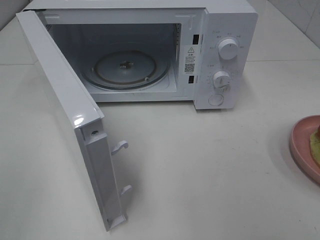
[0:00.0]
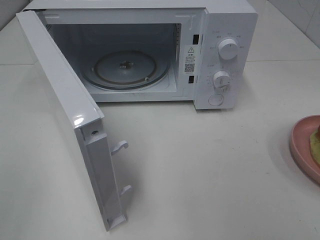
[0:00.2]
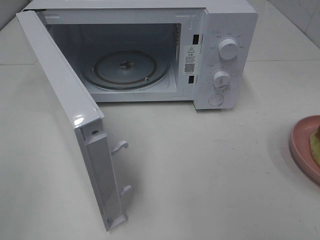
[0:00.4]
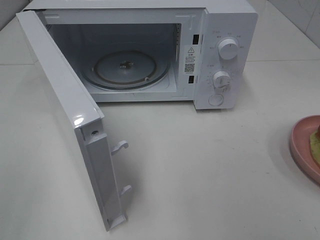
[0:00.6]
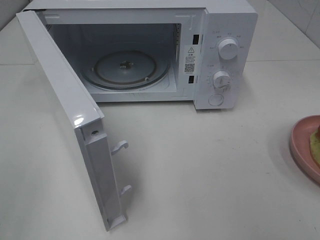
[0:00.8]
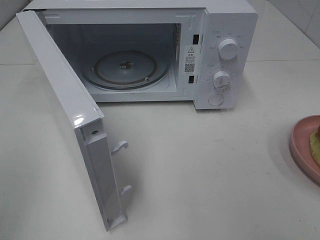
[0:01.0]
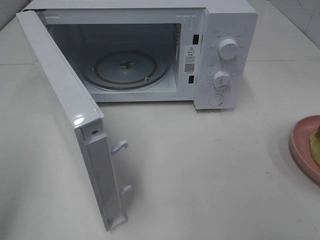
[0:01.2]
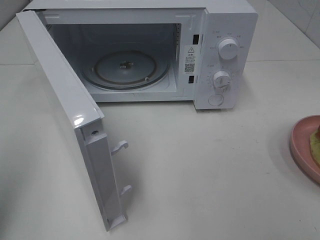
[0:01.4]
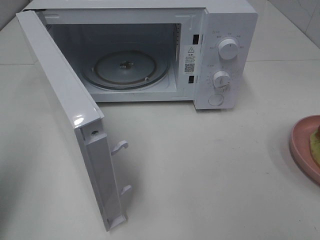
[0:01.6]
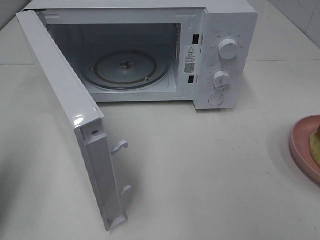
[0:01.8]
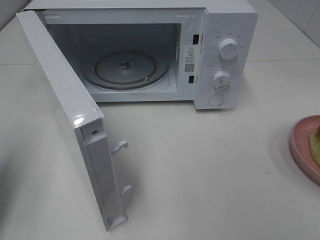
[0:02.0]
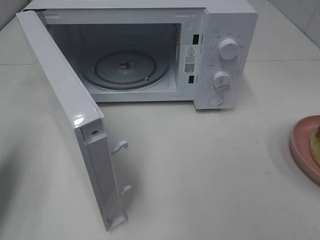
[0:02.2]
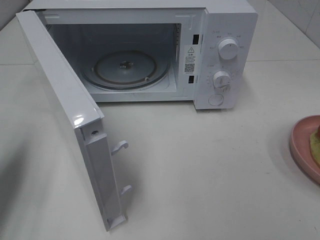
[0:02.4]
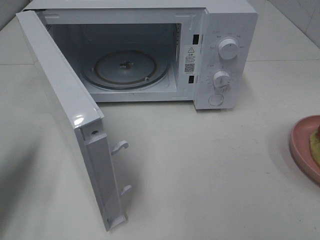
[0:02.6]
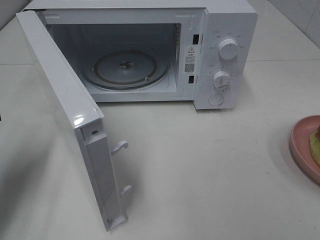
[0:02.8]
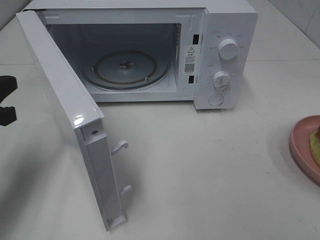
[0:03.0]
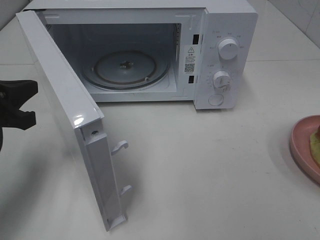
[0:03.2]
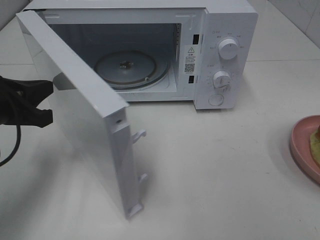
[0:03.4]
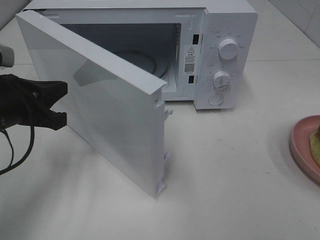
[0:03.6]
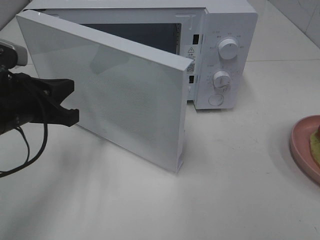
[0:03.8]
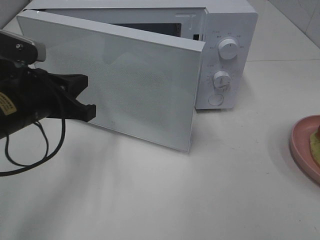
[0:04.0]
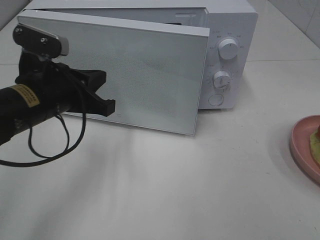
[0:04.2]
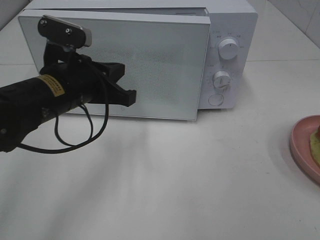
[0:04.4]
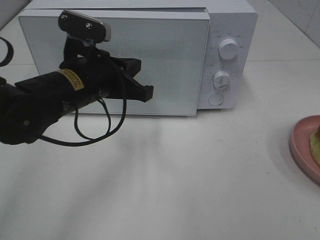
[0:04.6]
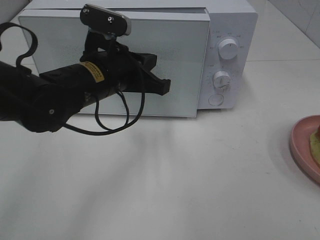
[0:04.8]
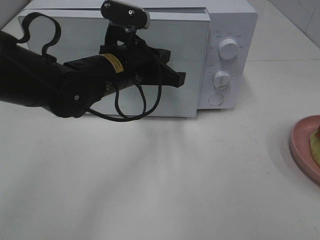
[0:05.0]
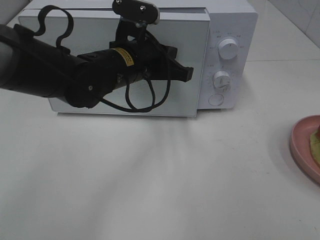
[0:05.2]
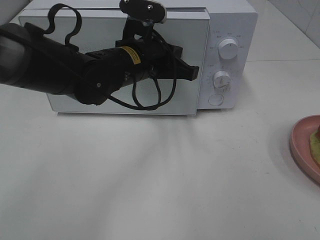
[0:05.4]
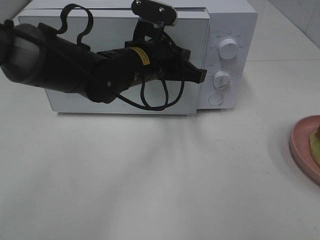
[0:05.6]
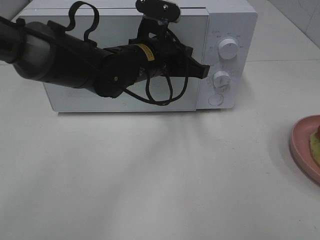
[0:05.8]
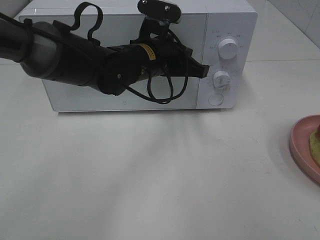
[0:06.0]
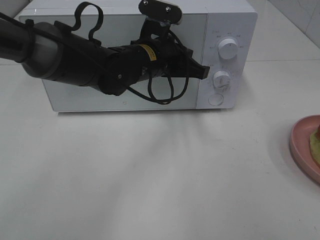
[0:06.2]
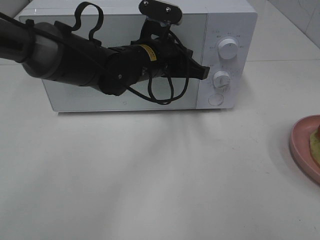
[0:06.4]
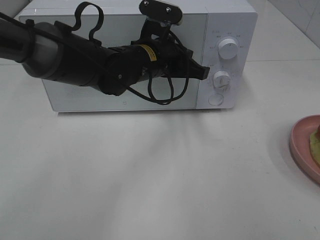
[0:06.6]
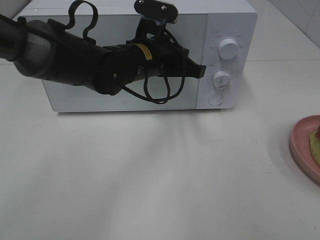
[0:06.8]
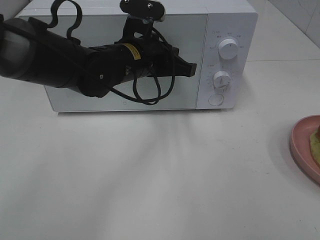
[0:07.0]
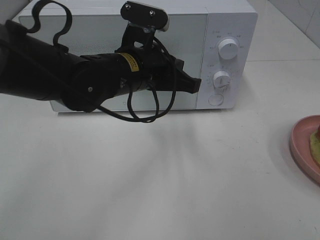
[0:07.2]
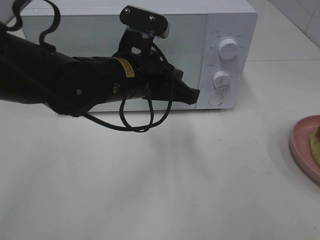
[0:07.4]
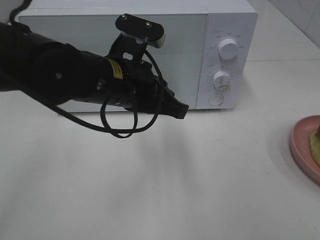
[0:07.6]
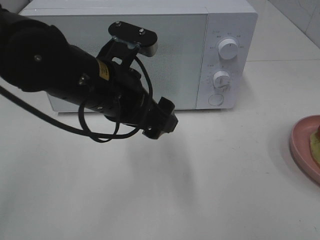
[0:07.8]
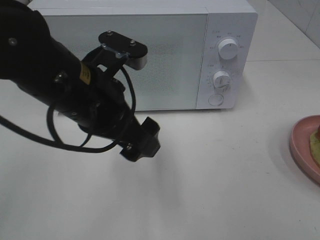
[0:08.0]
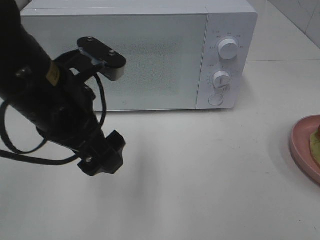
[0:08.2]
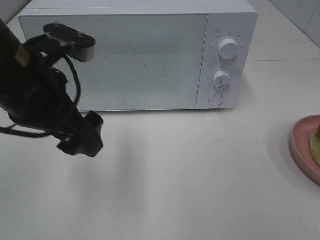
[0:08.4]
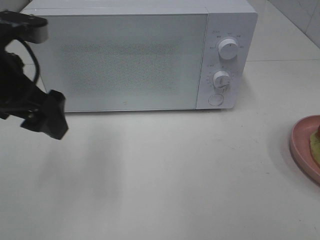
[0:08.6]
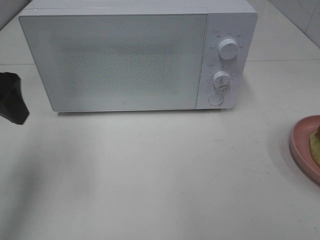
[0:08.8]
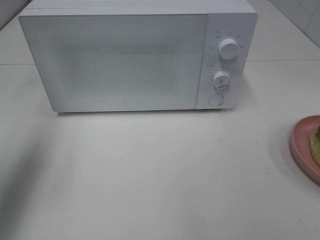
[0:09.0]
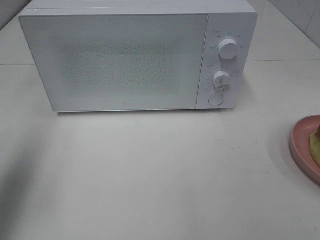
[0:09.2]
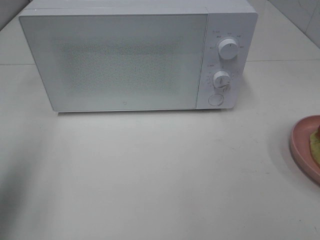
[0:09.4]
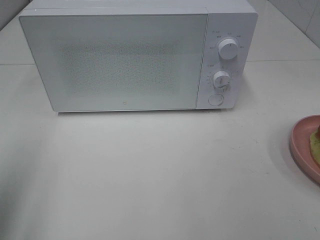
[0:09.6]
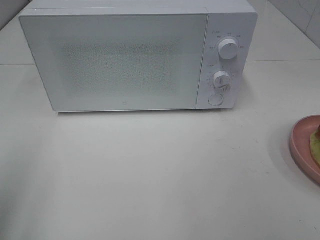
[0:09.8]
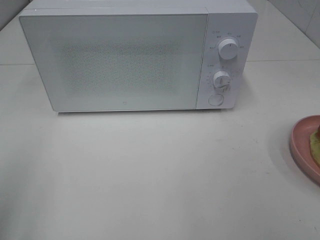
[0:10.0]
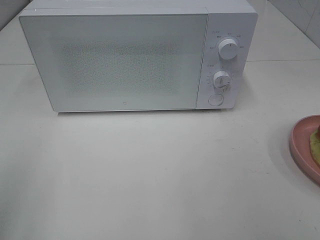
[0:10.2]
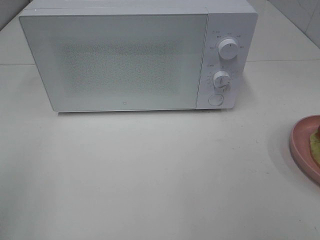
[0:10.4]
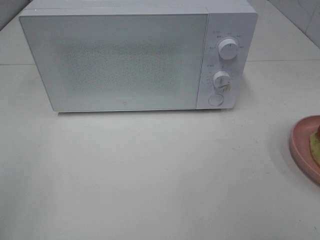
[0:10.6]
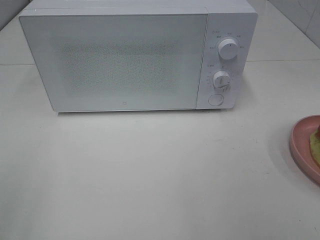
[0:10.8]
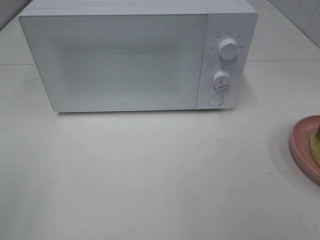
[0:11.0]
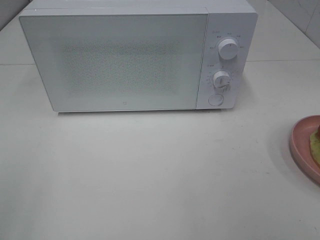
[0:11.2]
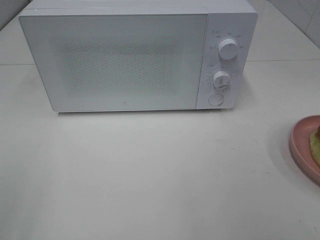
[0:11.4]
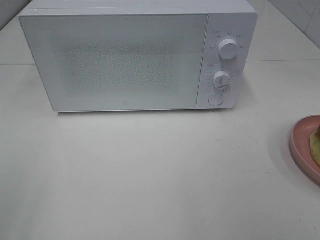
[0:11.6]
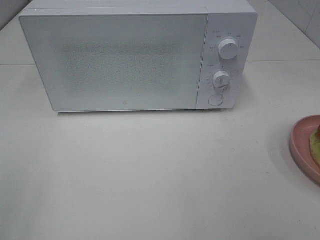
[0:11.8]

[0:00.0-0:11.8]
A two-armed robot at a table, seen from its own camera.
Task of the whole recording: Heat Sandwich.
Step, 0:00.0 to 0:07.4: Left hand: close the microwave door.
0:01.4 to 0:03.0: The left gripper moves forward and downward, about 15 cm.
0:03.0 to 0:04.4: The left gripper goes roughly 15 cm to the right.
0:04.4 to 0:06.0: The left gripper shifts approximately 15 cm to the right and forward.
0:06.0 to 0:07.4: The left gripper heads backward, covering some 10 cm.
0:07.4 to 0:08.8: The left gripper heads to the left and upward, covering about 25 cm, and opens its fingers.
0:08.8 to 0:10.4: The left gripper is displaced backward by approximately 20 cm.

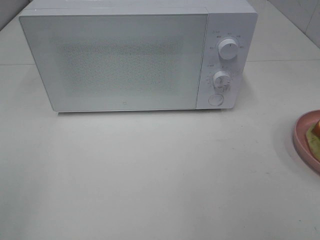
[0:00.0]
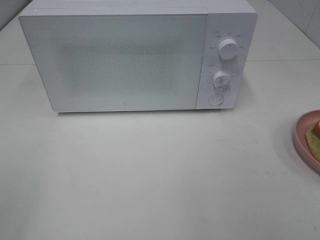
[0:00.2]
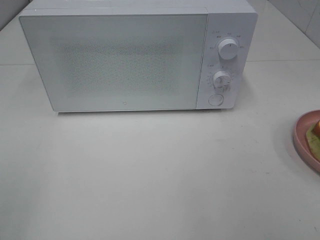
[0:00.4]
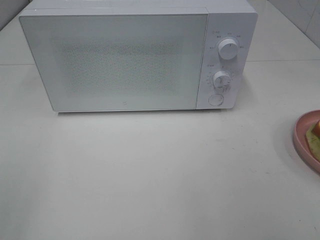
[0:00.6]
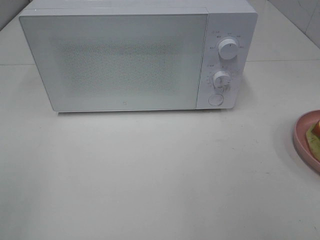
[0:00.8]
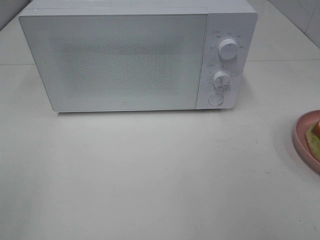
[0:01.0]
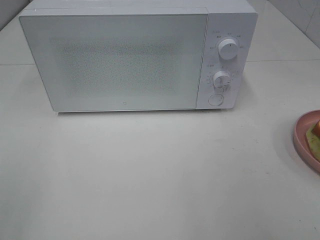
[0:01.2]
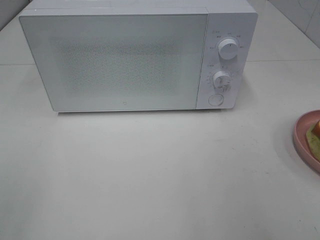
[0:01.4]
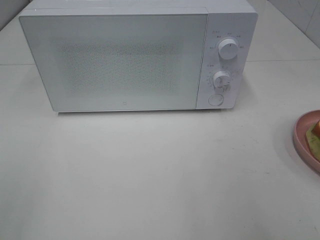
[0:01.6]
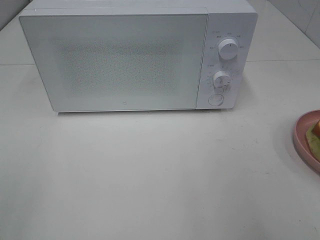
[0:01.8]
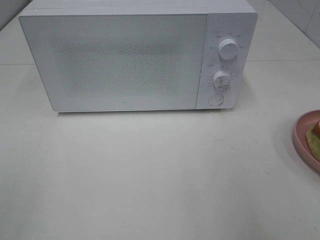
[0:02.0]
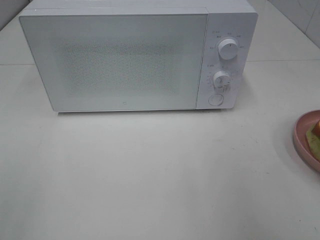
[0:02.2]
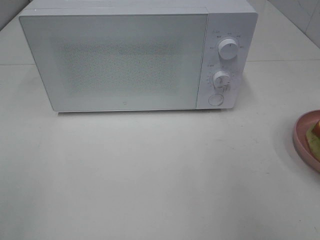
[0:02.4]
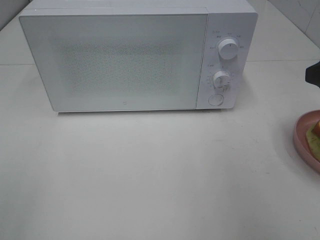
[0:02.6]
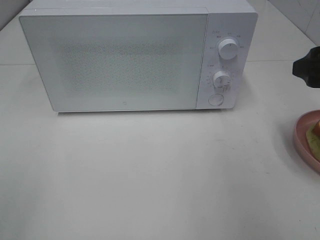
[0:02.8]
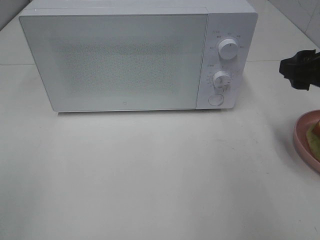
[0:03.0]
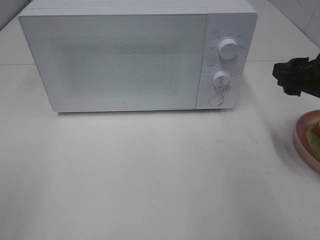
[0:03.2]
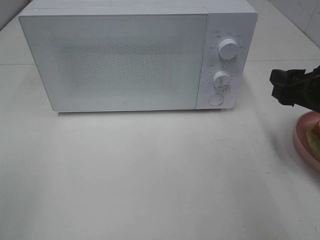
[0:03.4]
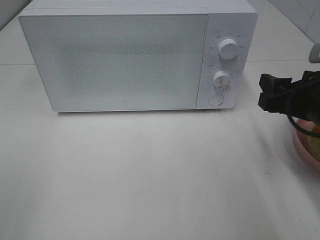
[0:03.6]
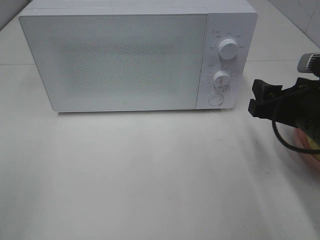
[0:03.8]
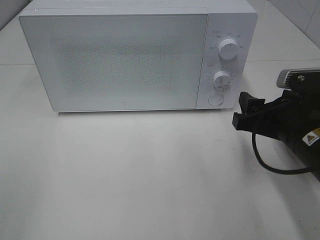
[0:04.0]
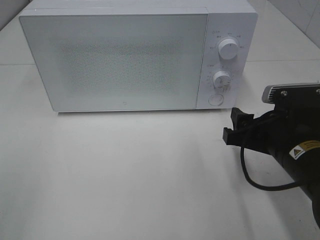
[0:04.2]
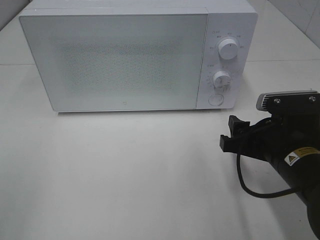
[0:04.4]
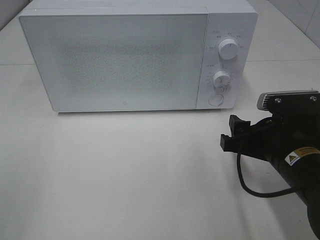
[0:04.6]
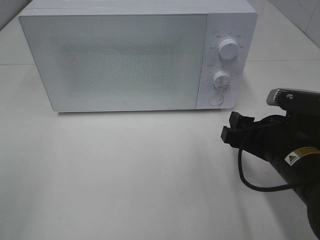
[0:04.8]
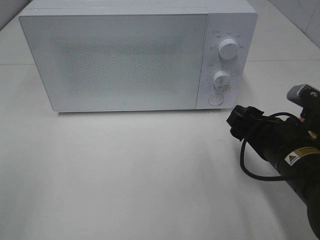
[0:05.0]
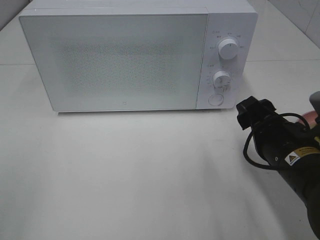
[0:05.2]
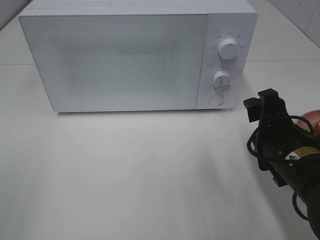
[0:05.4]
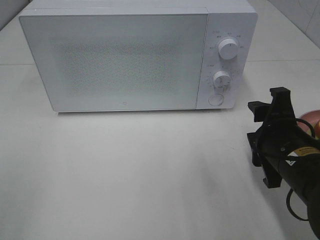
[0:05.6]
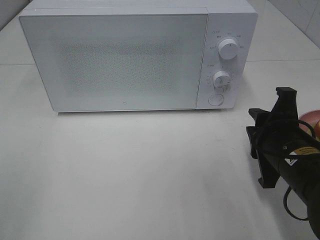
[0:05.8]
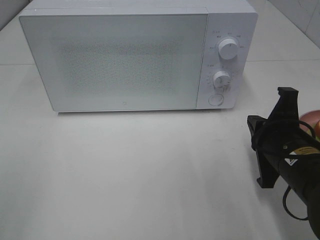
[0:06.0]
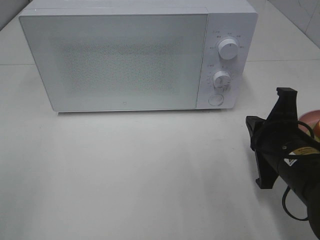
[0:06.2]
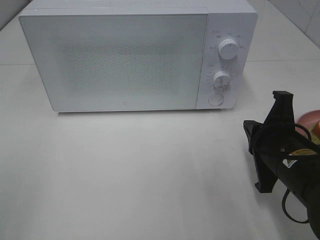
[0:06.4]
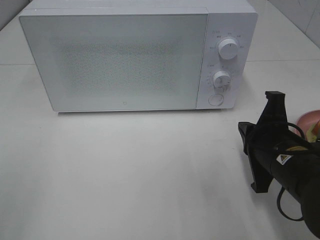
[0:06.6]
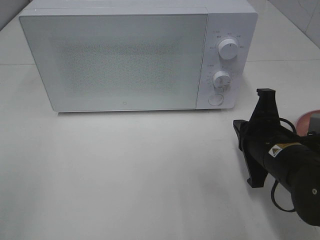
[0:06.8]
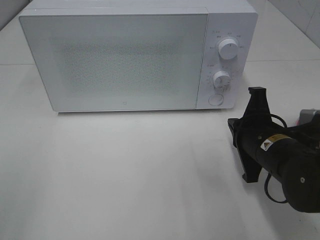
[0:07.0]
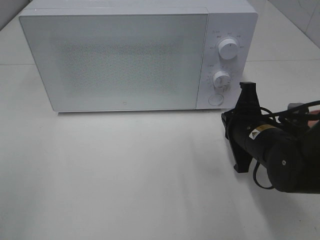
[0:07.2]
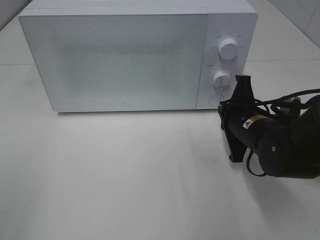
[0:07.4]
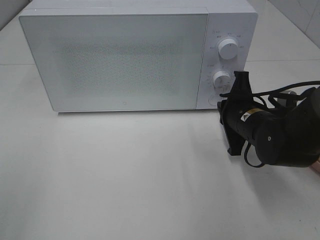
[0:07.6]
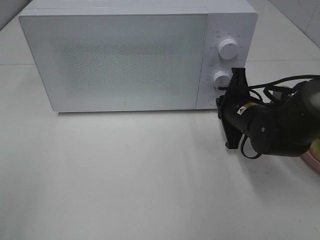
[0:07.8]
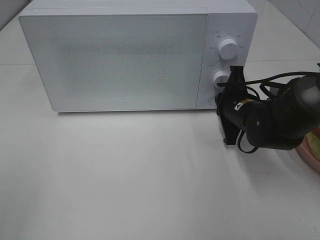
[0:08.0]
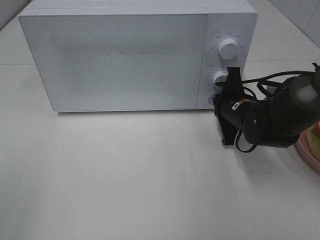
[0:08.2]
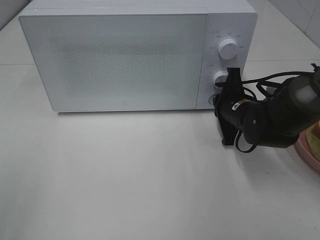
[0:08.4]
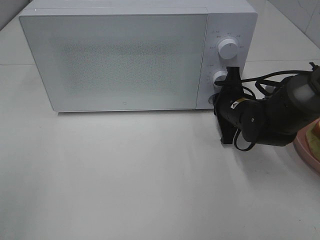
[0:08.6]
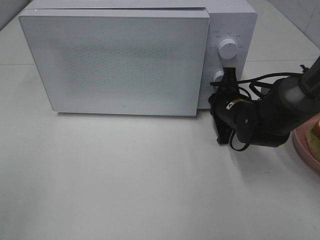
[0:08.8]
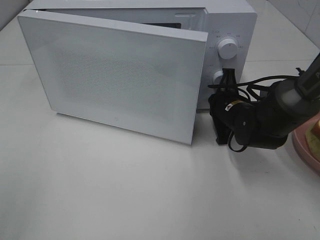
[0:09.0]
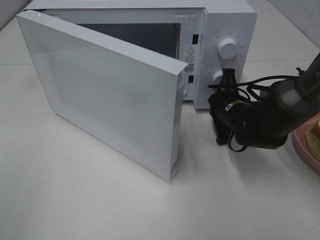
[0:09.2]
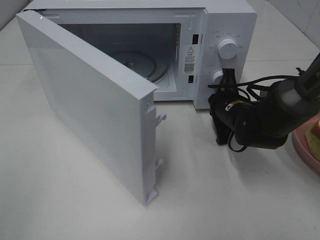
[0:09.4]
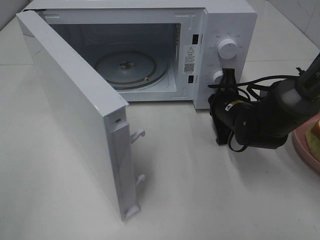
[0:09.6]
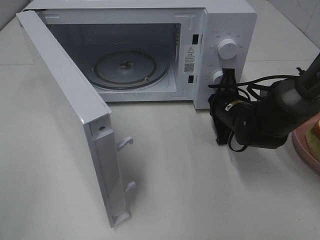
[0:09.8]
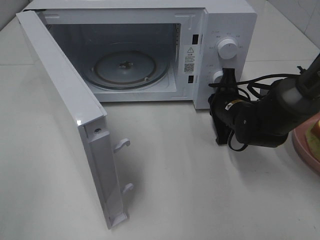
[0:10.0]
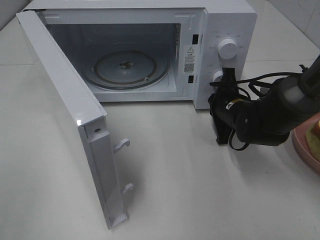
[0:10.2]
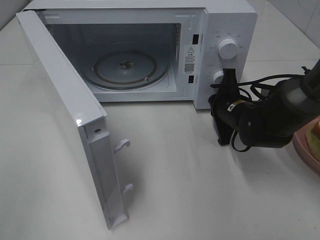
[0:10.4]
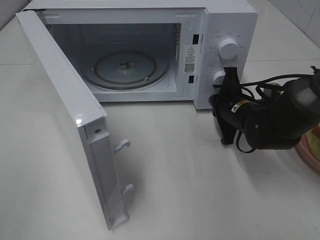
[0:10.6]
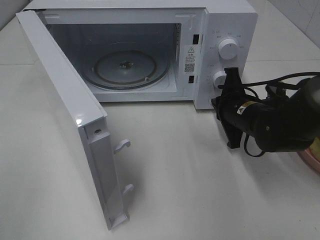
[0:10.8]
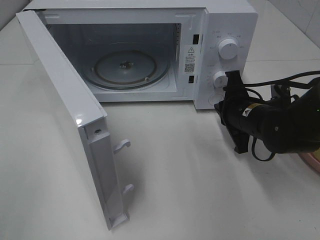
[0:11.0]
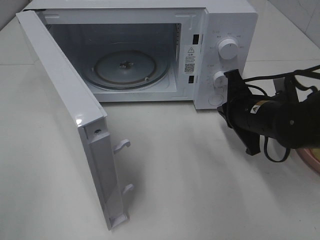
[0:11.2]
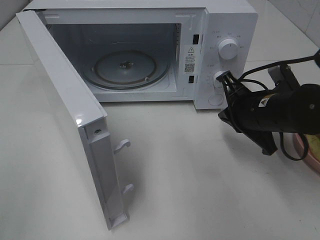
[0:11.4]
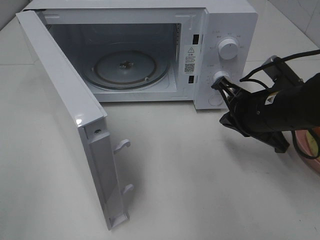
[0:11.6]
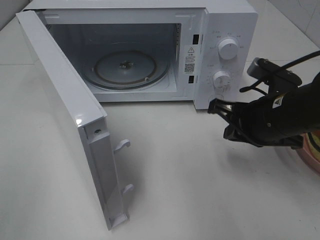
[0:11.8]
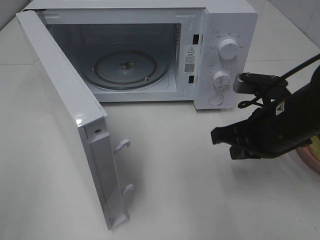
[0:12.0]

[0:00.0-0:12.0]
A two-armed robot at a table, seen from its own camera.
Task of the whole recording: Heat Sandwich.
Step, 0:00.0 to 0:10.6: Right hand: press the switch.
0:01.6 to 0:03.0: The right gripper heads forward and downward, covering roughly 15 cm.
0:03.0 to 0:04.4: The right gripper shifts about 15 cm downward and to the left.
0:04.4 to 0:06.0: The right gripper closes.
0:06.0 to 0:07.6: The right gripper heads forward, covering some 10 cm.
0:07.6 to 0:09.0: The right gripper is displaced forward by approximately 5 cm.
0:10.4 to 0:12.0: The right gripper moves backward and upward, about 15 cm.
